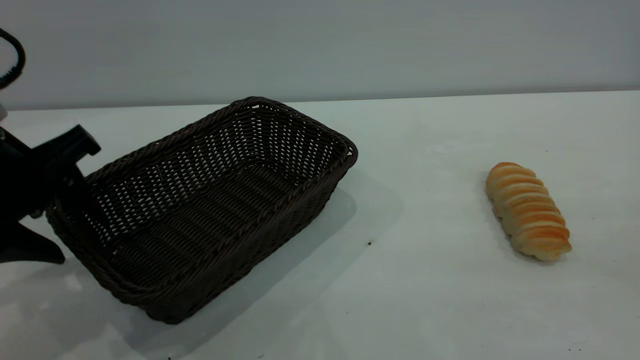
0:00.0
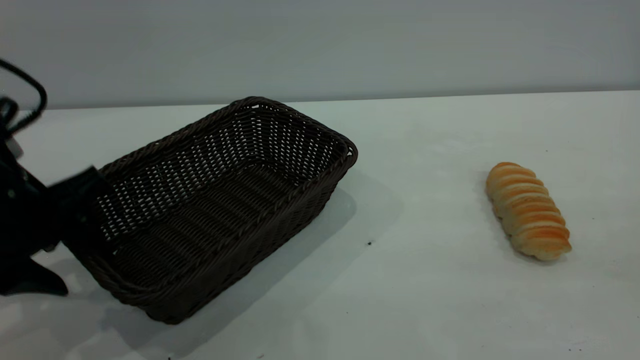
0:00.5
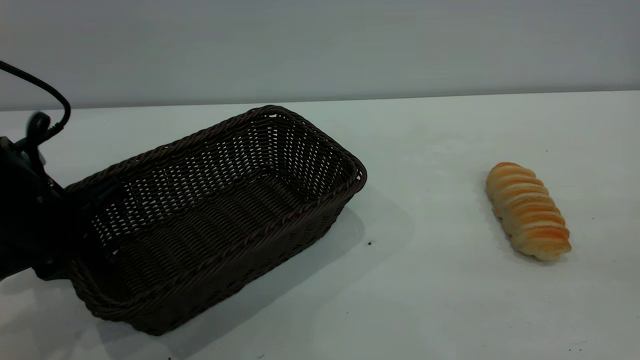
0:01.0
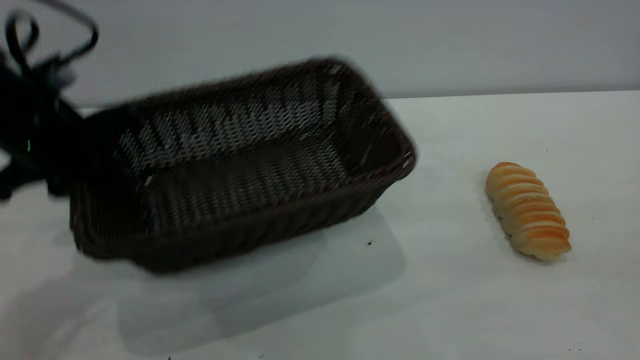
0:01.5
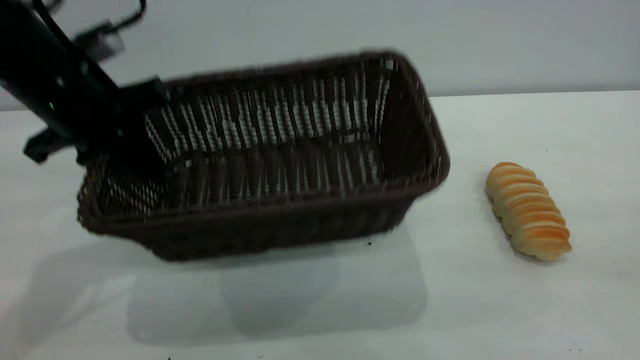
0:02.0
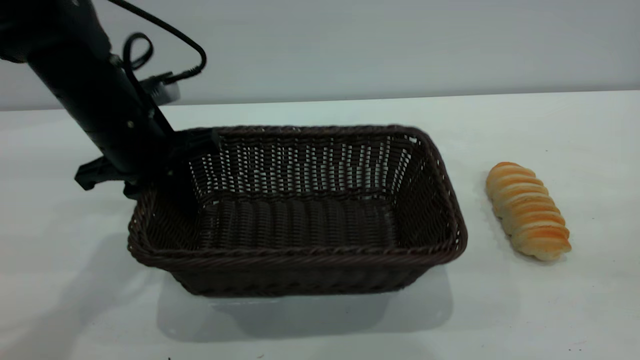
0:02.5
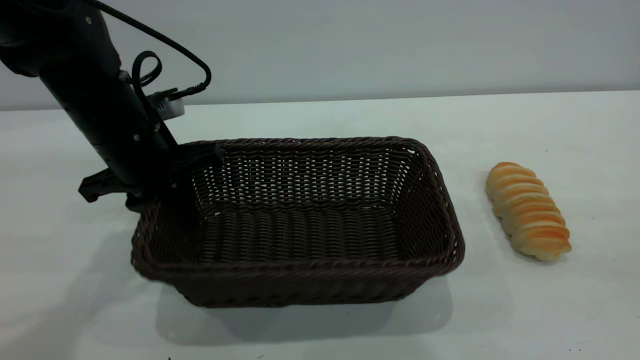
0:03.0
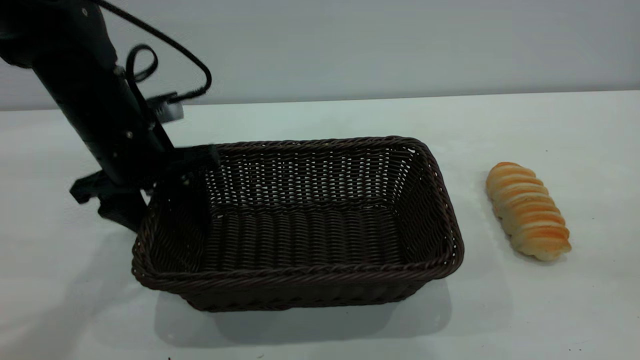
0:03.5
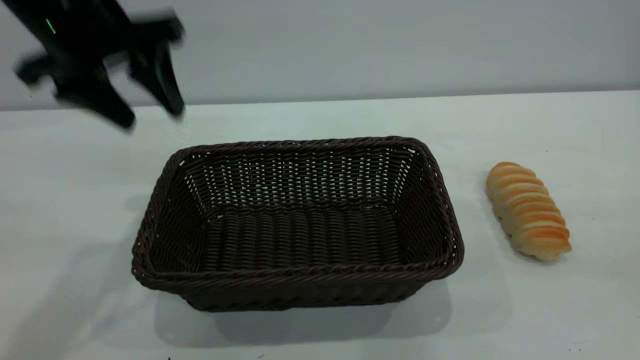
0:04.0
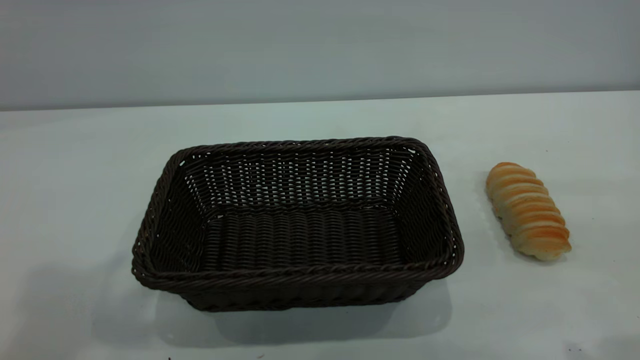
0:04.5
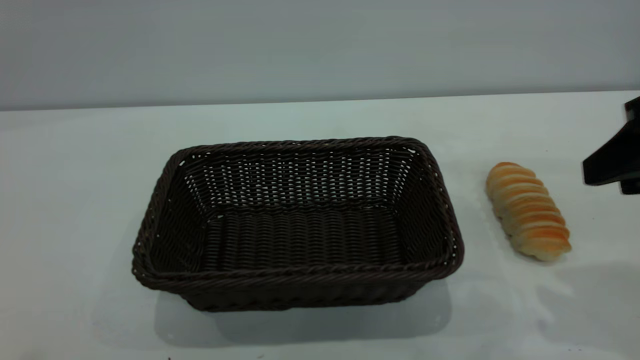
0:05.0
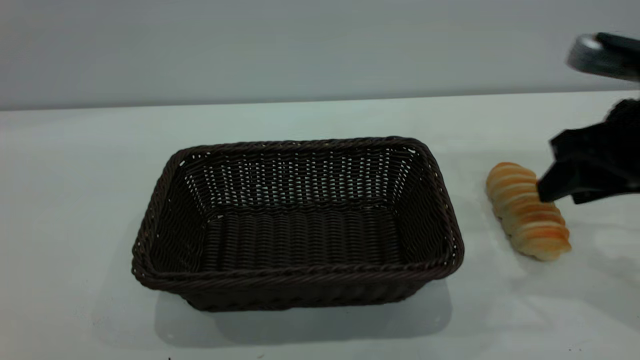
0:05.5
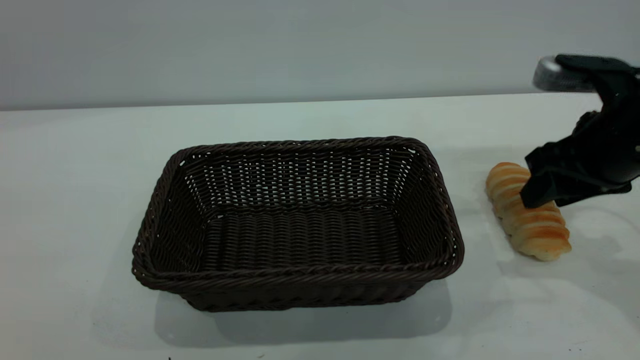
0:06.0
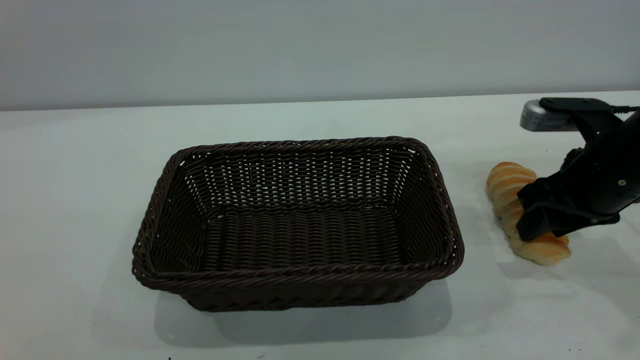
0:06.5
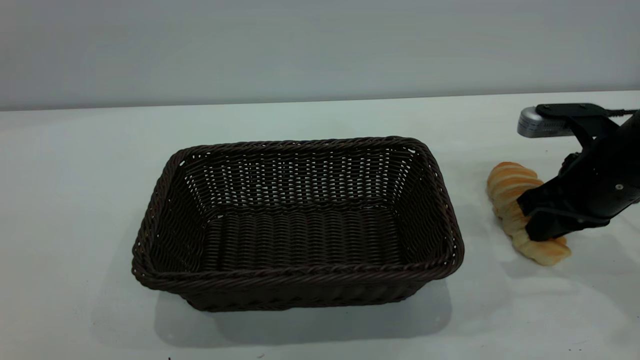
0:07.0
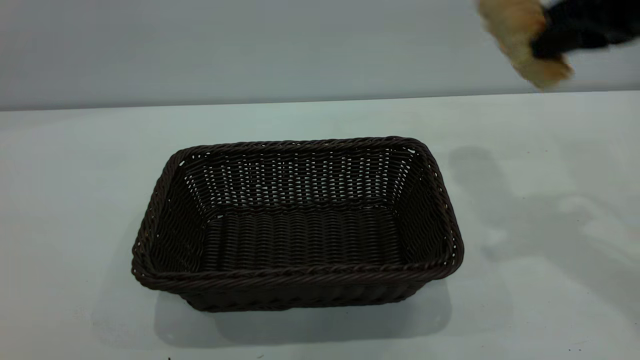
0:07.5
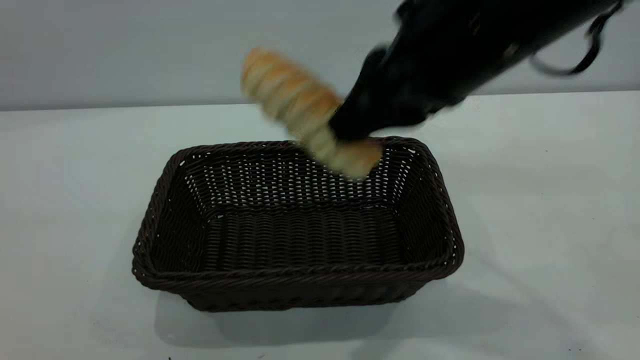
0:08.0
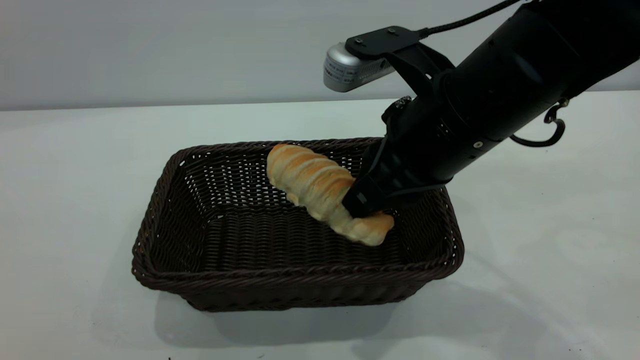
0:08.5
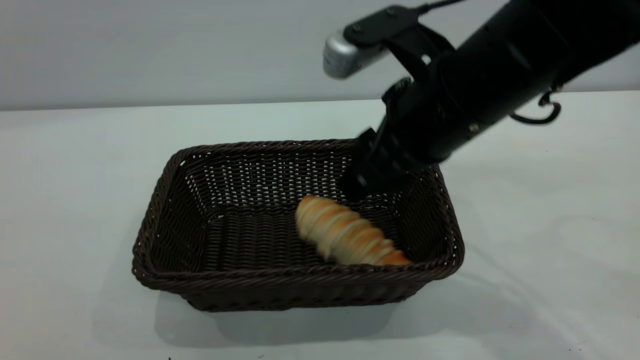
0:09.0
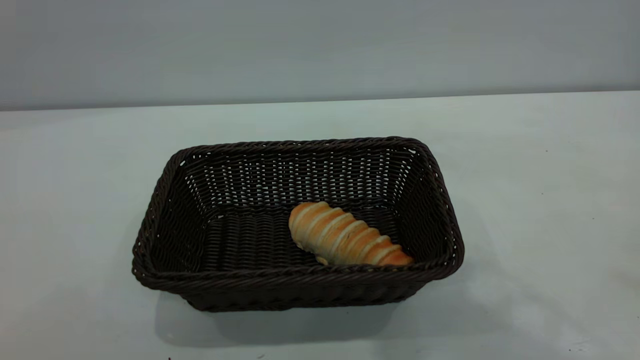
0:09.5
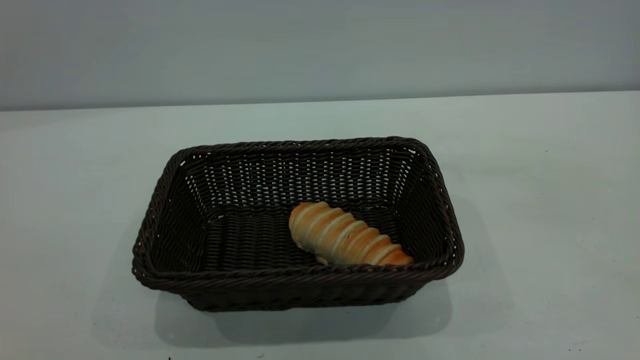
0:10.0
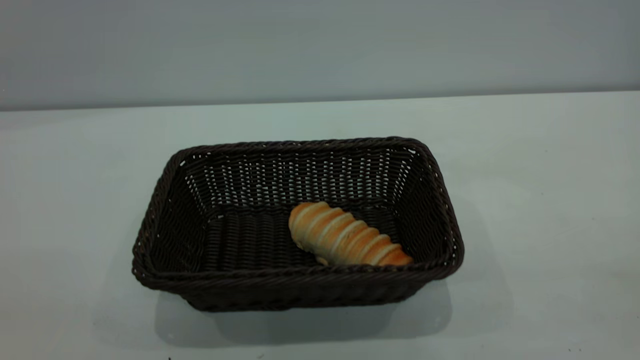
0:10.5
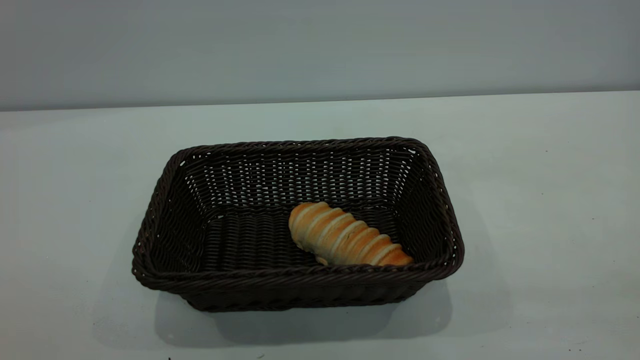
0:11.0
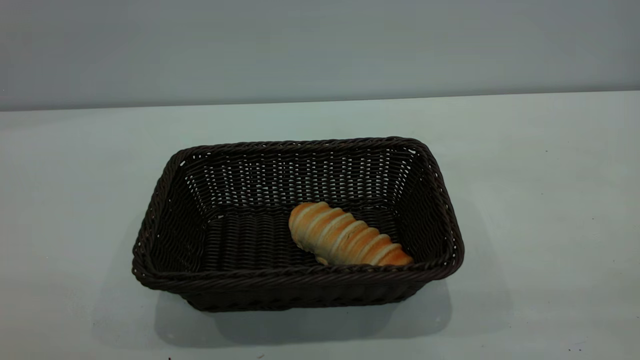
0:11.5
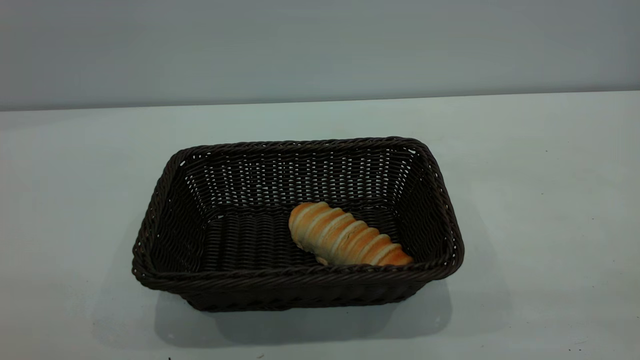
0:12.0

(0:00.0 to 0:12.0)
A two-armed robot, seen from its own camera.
Task of the whole recording: One hand grasps the black basket and places it in the middle of the table, while the other hand picks up the long bread and puts it into the black basket.
Step, 0:00.0 - 0:03.5: Move the basket to the center of view.
Step, 0:07.5 - 0:09.0: place the bread into the basket.
0:00.0 - 0:02.0: The left gripper travels forward by about 10 cm, and closes up.
0:02.0 - 0:04.0: The left gripper goes some 10 cm upward, and opens.
0:04.0 - 0:06.0: The right gripper moves forward and downward, approximately 30 cm. The left gripper is displaced backward and upward by approximately 50 cm.
0:06.0 - 0:08.0: The right gripper heads to the left and upward, covering about 20 cm, and closes its fingers.
0:08.0 - 0:10.0: The right gripper goes approximately 30 cm upward, backward and to the right, and opens its fingers. Meanwhile the left gripper changes place by some 5 cm.

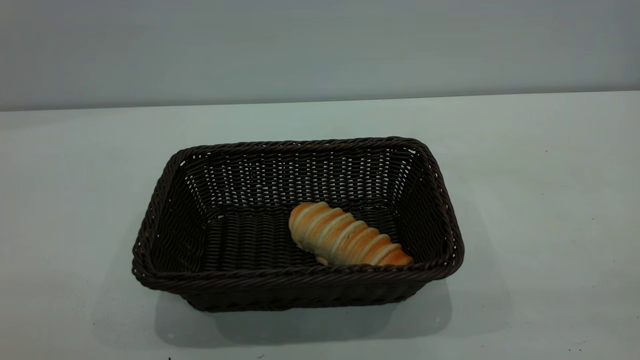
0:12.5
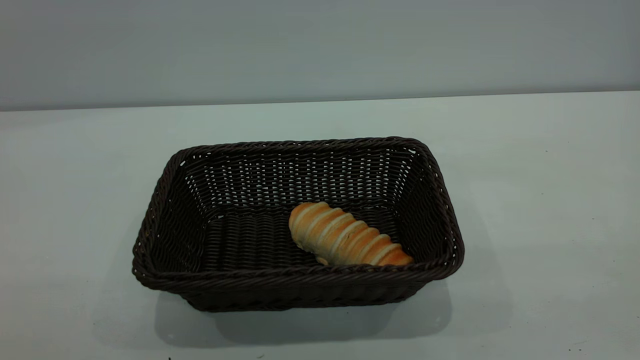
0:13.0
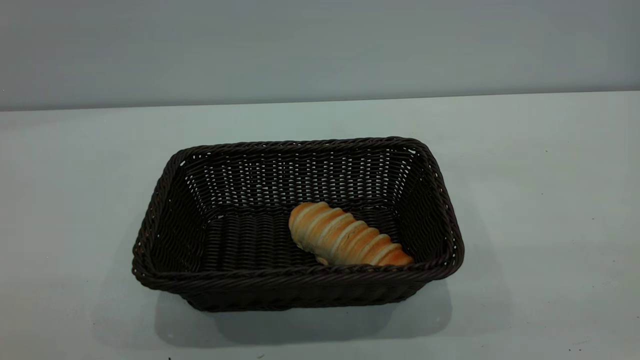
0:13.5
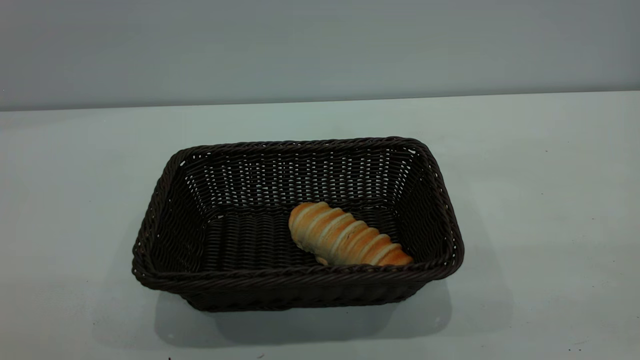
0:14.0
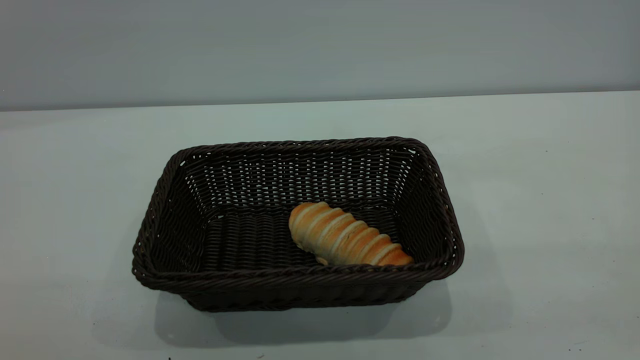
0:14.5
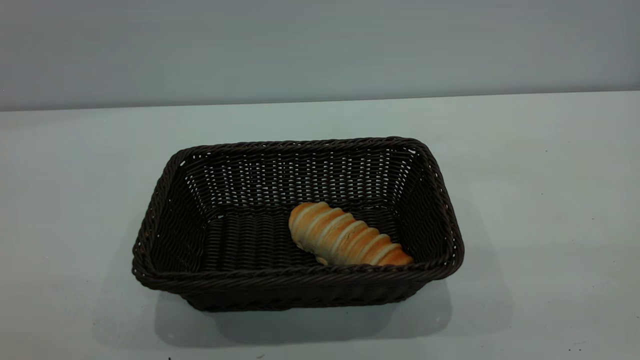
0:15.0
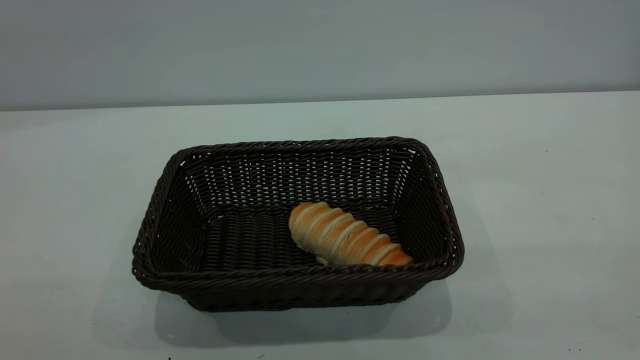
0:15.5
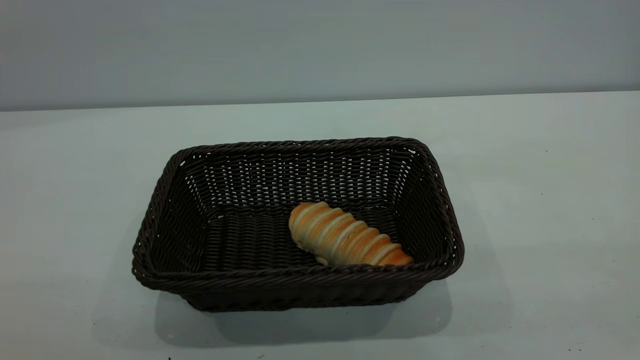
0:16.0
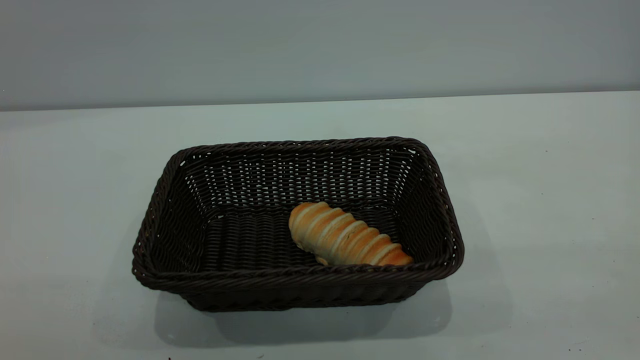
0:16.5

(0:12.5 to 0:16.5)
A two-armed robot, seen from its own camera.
Task of the whole recording: One hand grasps the black basket and places it in the middle of the table, while the other hand picks up the long bread and puts it into the black basket.
0:14.5 - 0:16.5: Neither gripper changes place.
